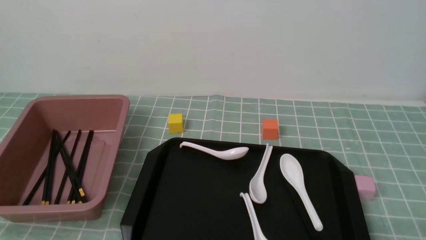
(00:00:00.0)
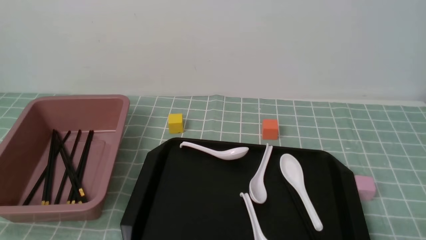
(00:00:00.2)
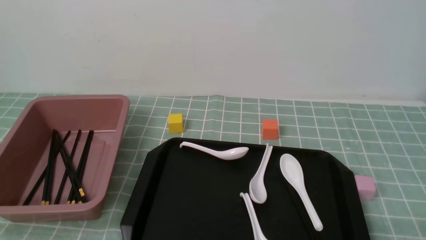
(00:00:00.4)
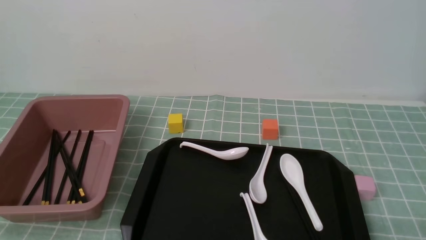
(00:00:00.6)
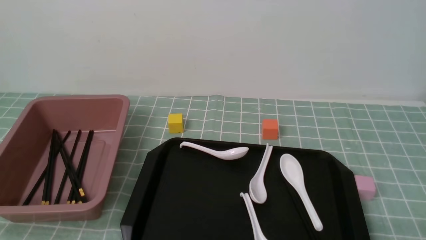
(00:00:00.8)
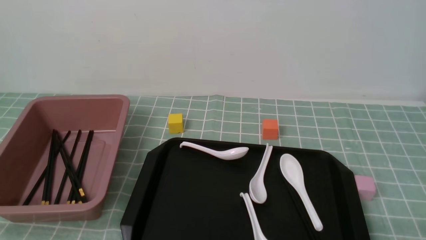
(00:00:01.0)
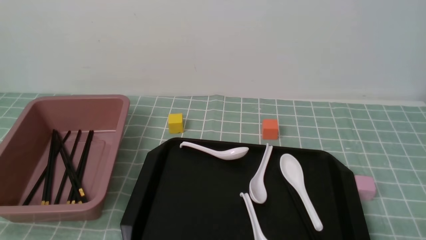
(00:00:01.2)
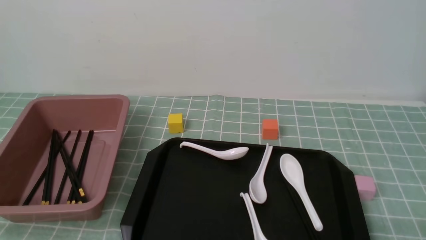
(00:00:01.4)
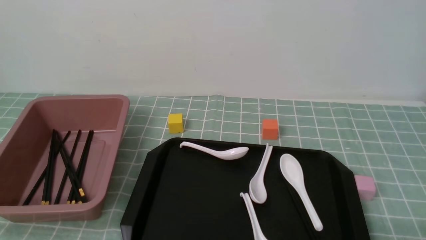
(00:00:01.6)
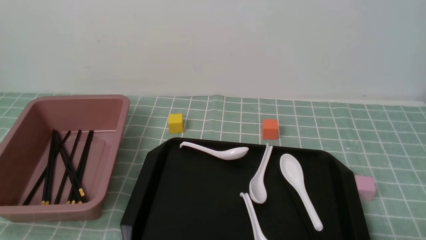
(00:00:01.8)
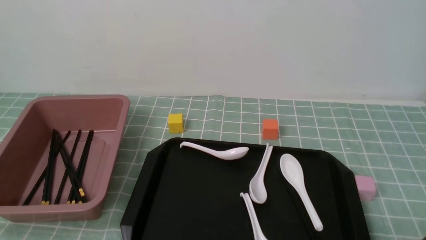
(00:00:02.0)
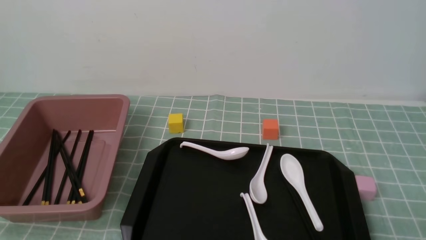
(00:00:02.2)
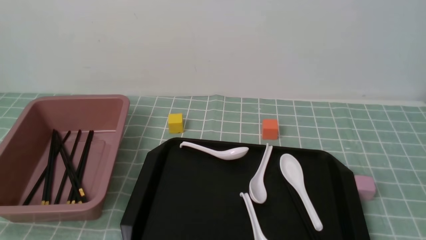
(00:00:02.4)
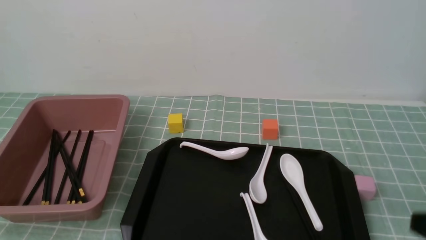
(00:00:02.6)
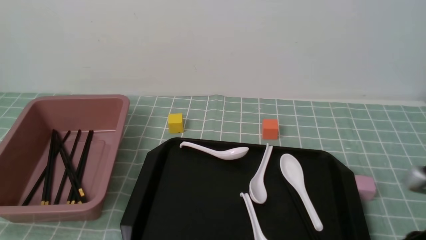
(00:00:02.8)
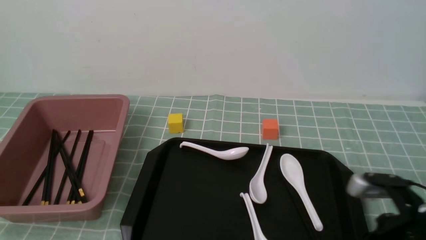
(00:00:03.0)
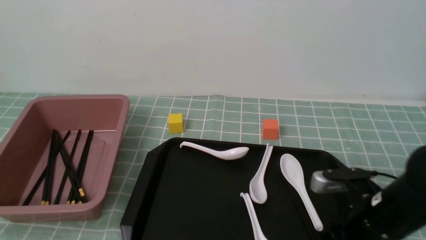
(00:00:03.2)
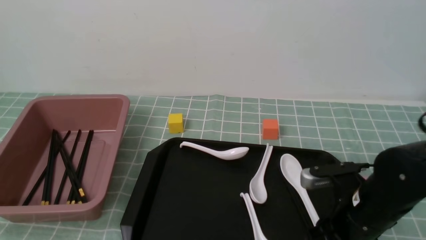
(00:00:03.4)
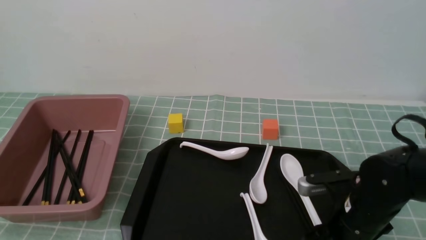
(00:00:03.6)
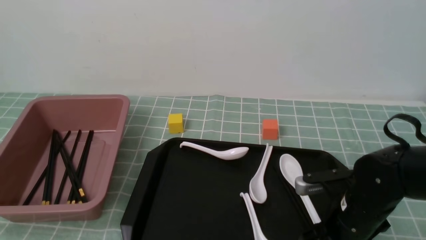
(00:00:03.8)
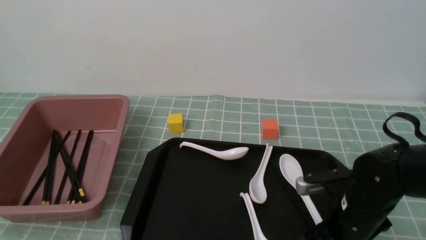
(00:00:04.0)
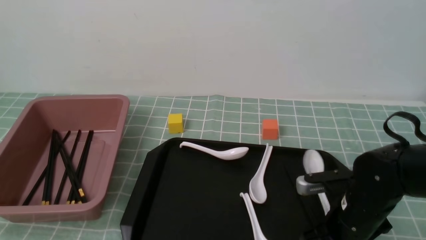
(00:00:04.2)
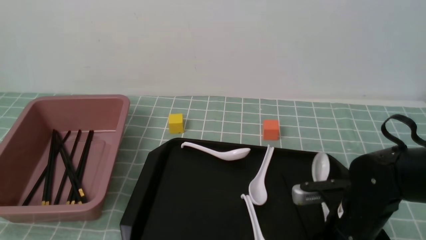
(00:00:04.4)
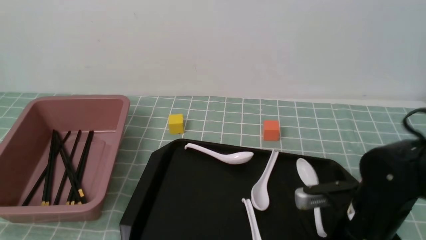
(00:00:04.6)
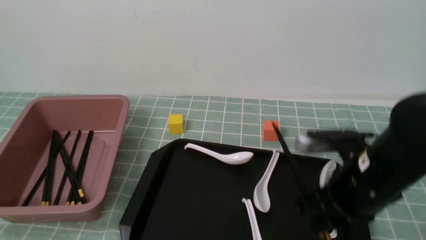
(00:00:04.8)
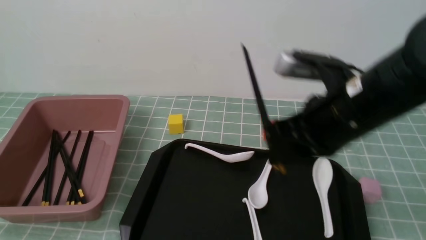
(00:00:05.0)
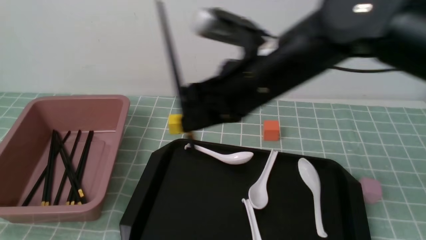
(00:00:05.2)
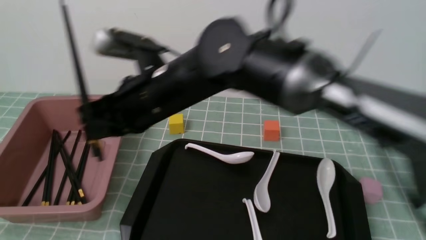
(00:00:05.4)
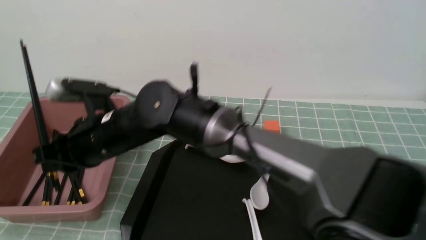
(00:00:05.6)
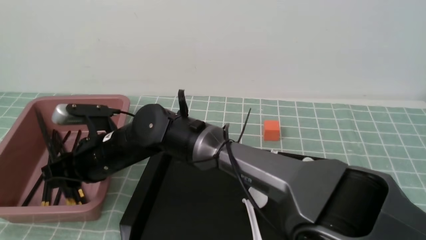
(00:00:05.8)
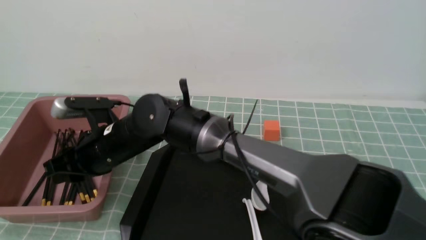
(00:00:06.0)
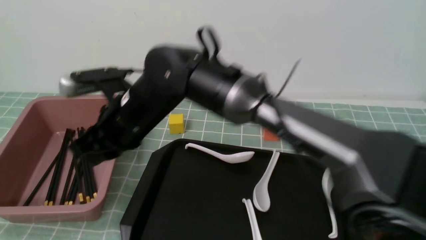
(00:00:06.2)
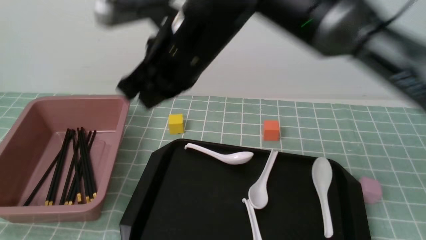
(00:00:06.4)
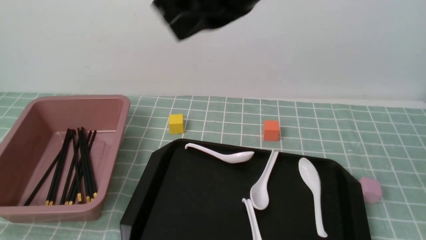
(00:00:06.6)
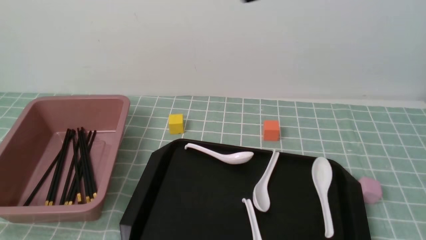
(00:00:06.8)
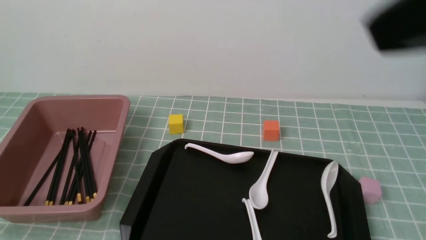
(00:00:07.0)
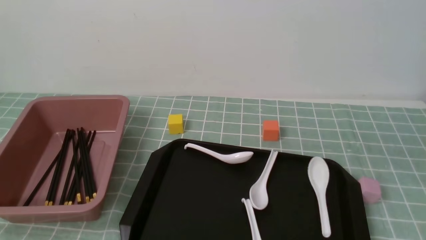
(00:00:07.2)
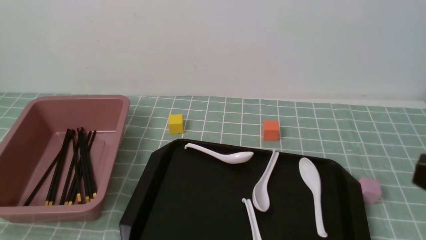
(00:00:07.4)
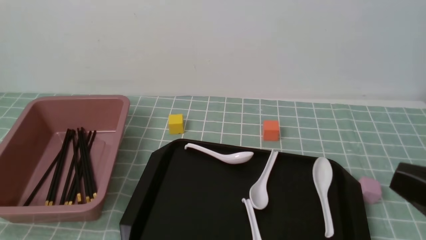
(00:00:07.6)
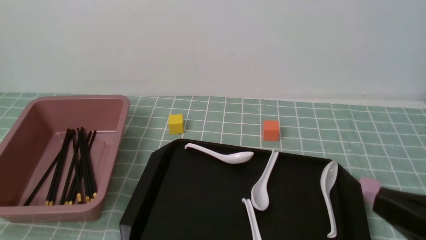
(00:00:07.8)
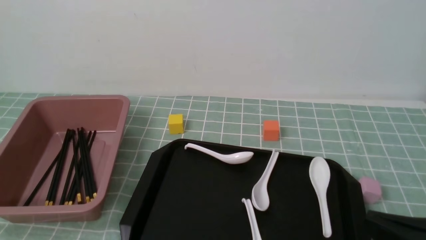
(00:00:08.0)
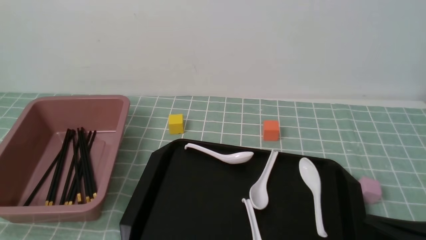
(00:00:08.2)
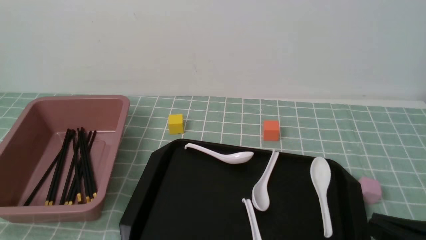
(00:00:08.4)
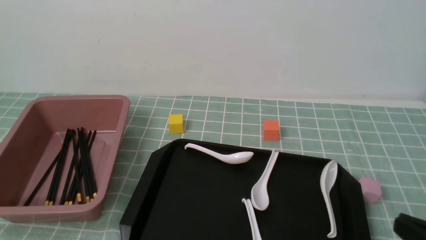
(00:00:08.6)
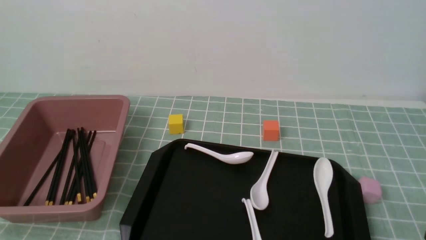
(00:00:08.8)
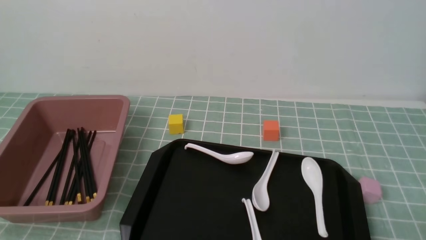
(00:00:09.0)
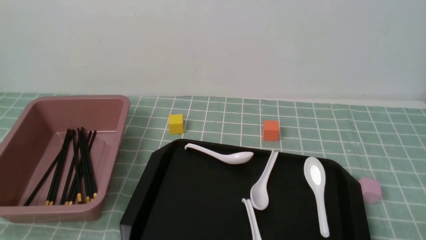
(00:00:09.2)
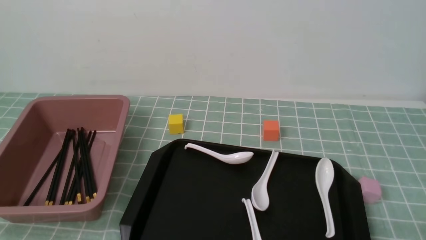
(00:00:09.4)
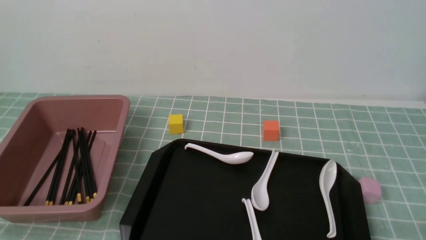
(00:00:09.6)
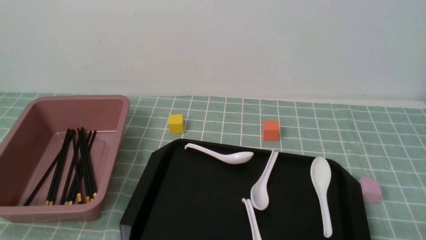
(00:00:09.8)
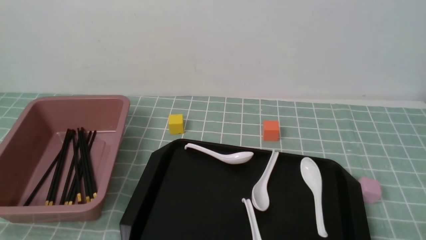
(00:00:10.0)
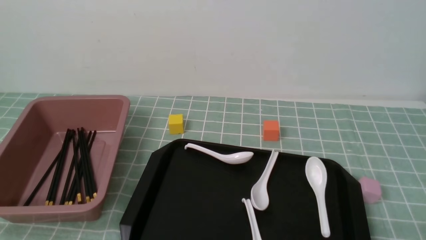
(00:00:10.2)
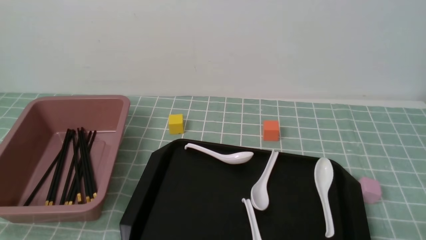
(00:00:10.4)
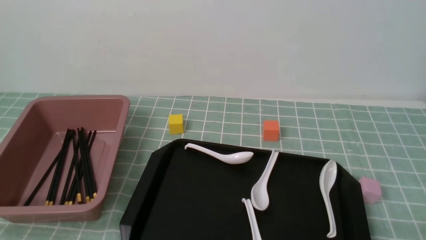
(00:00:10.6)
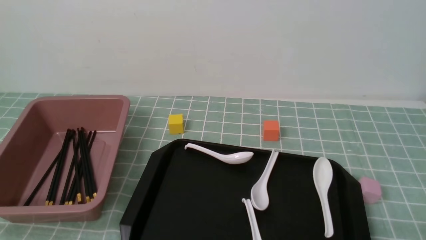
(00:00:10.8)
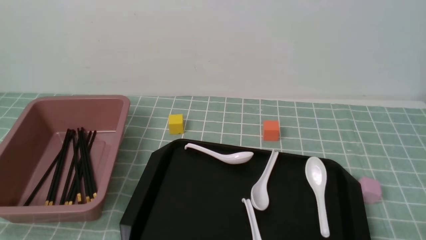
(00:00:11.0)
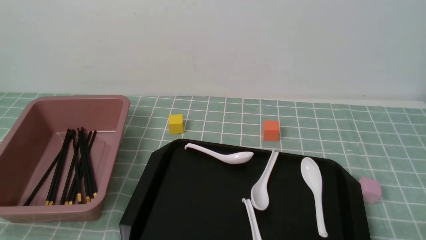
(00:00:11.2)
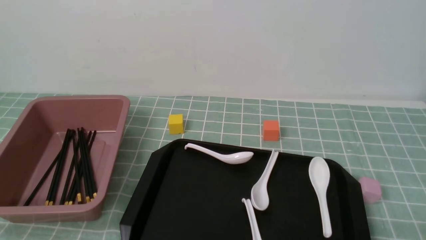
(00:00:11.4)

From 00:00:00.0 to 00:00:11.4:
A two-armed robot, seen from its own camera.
Step, from 00:00:00.0 to 00:00:04.8: use the right arm to grab a pair of chopsticks.
Step, from 00:00:05.2 to 00:00:06.0: use the right arm to put the chopsticks into the lunch box.
From 00:00:01.4 to 00:00:02.8: The right gripper heads forward and upward, covering about 10 cm, and closes its fingers.
From 00:00:02.8 to 00:00:04.2: The right gripper heads downward, forward and to the left, covering some 15 cm, and opens and closes again.
From 00:00:04.2 to 00:00:05.6: The right gripper moves to the left, some 30 cm.
From 00:00:05.6 to 00:00:07.2: The right gripper shifts some 50 cm to the right, backward and upward, and closes its fingers.
From 00:00:07.2 to 00:00:08.6: The right gripper heads downward, covering roughly 20 cm.
From 00:00:08.6 to 00:00:10.0: The right gripper moves downward, some 5 cm.
From 00:00:10.0 to 00:00:11.4: Neither gripper changes place.
